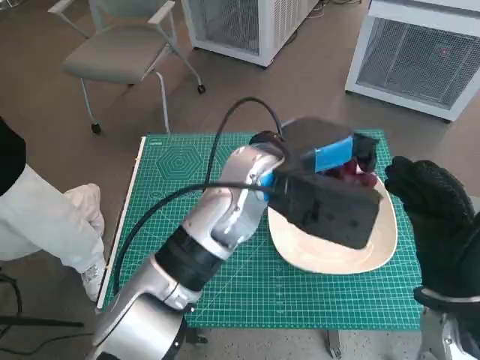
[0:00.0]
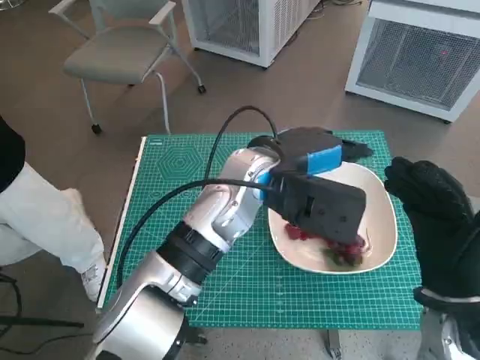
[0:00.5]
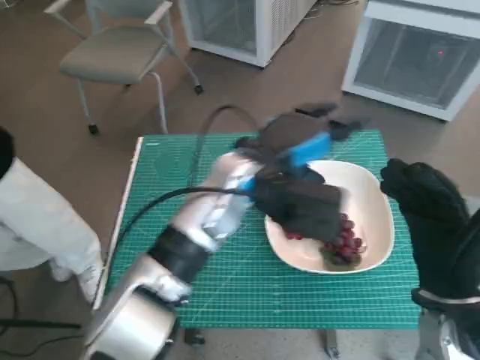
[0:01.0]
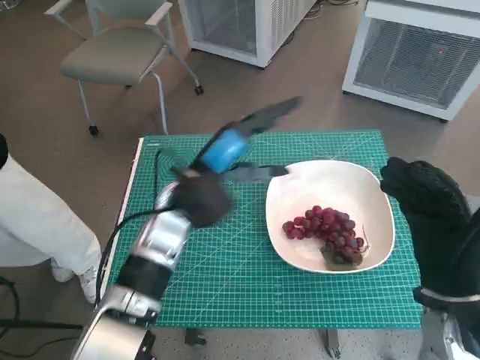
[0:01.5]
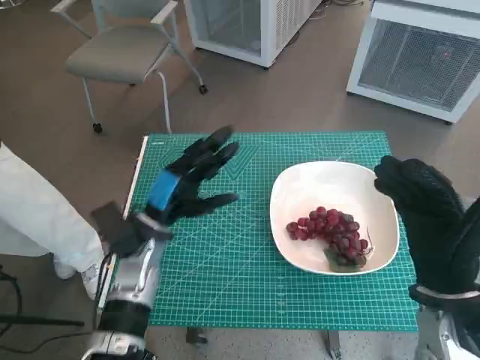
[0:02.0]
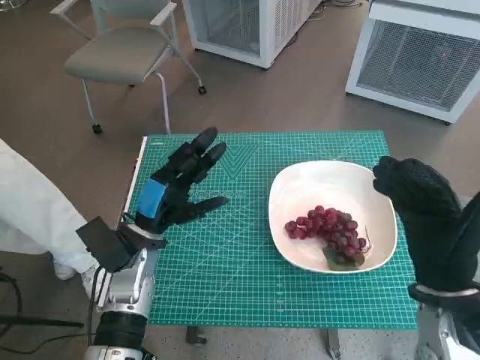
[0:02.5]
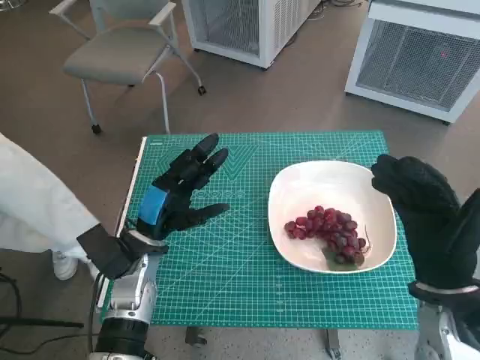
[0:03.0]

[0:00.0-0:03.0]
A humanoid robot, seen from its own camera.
Task of the whole recording: Pick up the grapes and put them on the plate.
0:00.0 to 0:01.5: The left hand is displaced to the left and downward by approximately 10 cm.
0:01.5 to 0:03.0: The left hand goes roughly 10 cm downward and to the left.

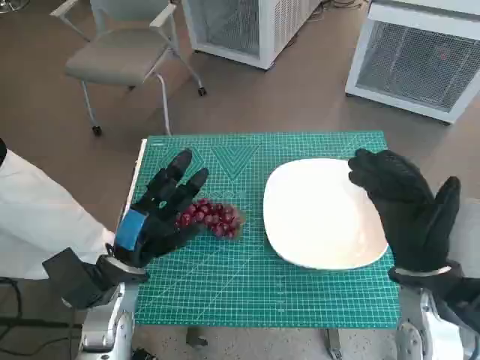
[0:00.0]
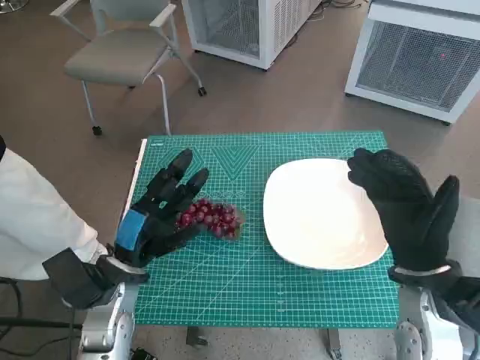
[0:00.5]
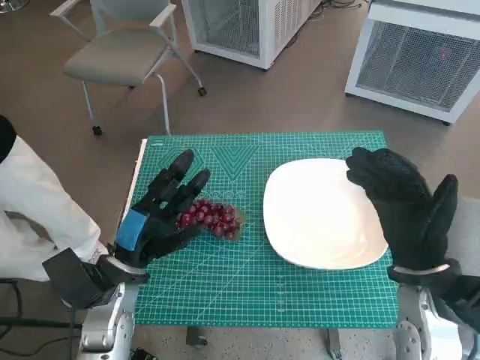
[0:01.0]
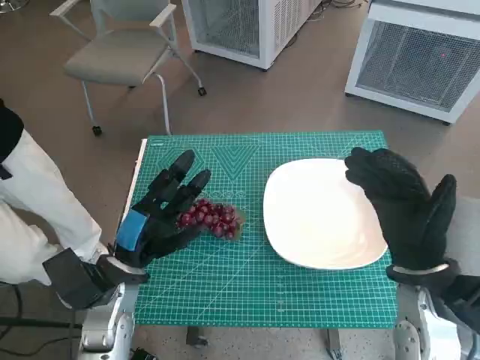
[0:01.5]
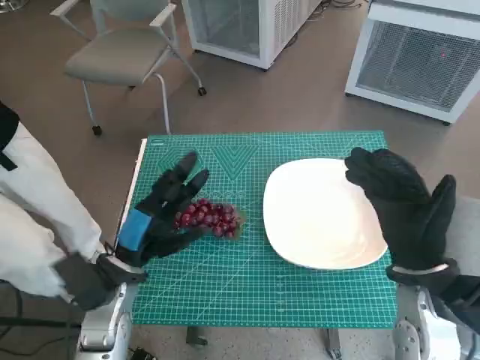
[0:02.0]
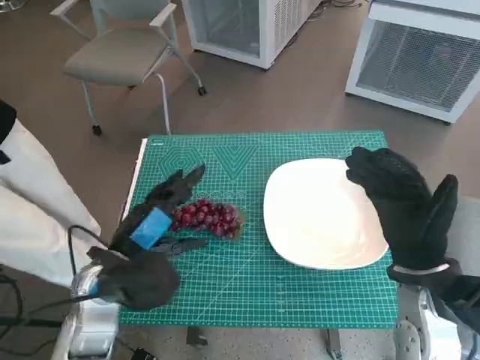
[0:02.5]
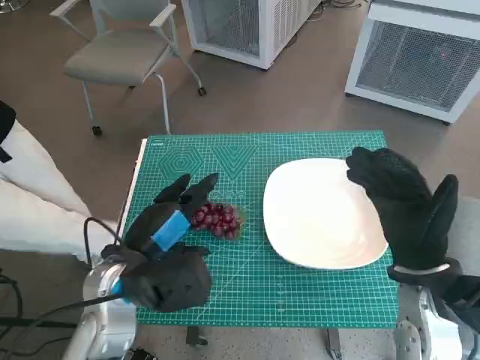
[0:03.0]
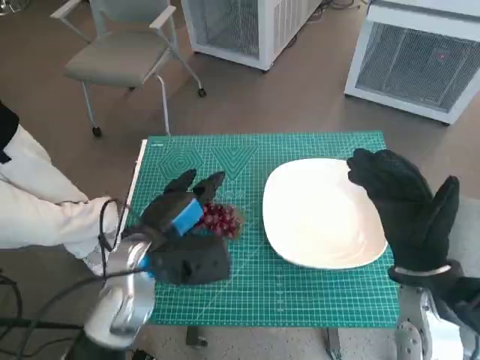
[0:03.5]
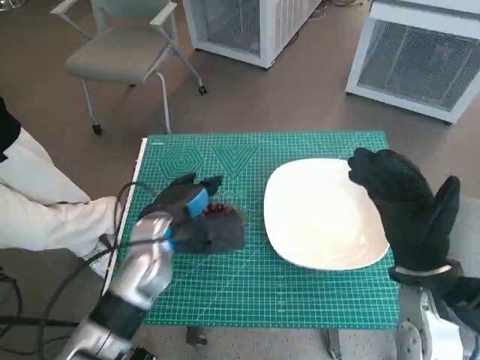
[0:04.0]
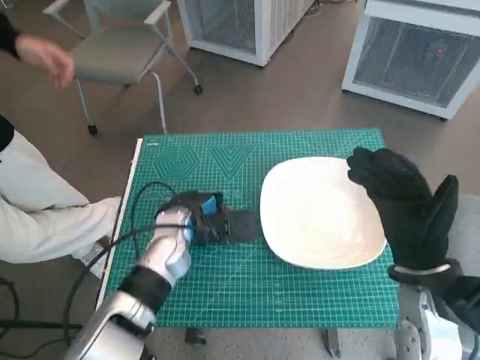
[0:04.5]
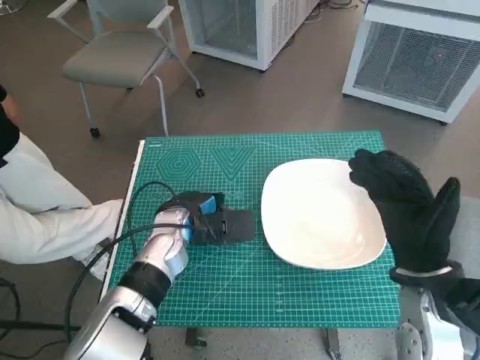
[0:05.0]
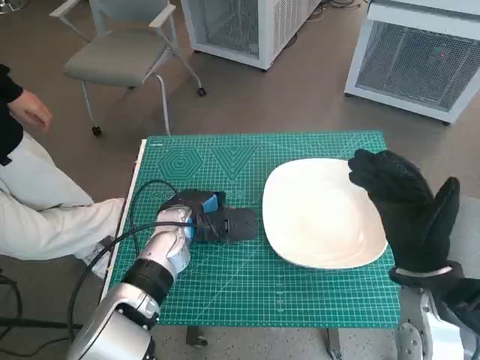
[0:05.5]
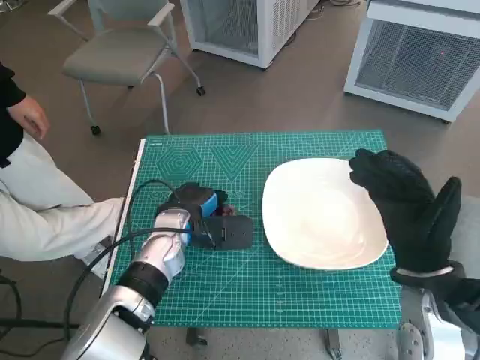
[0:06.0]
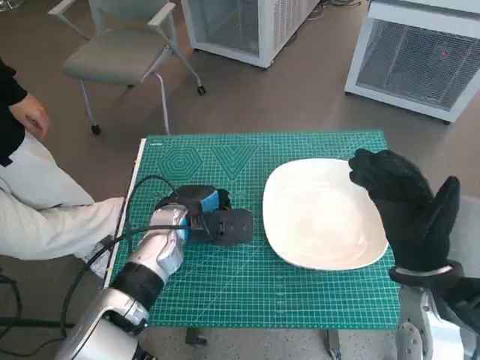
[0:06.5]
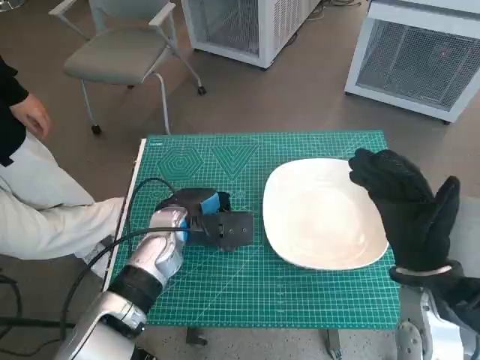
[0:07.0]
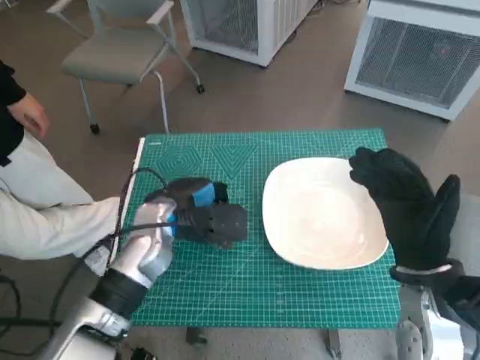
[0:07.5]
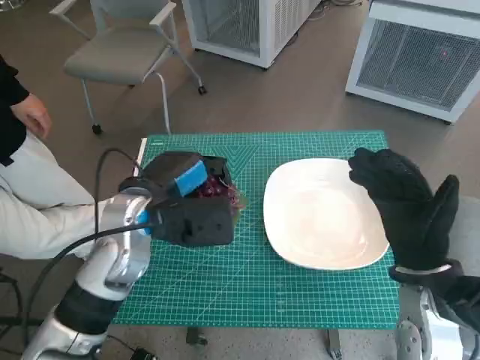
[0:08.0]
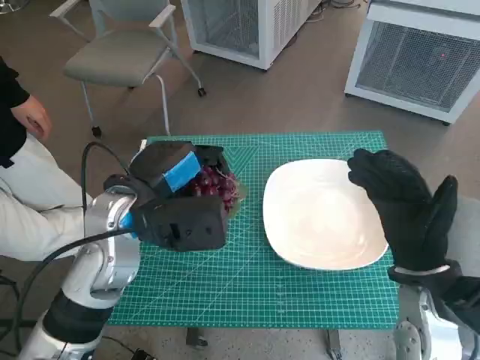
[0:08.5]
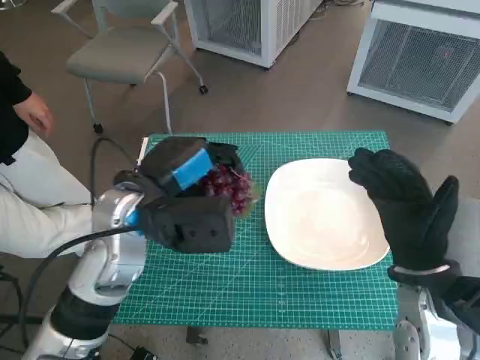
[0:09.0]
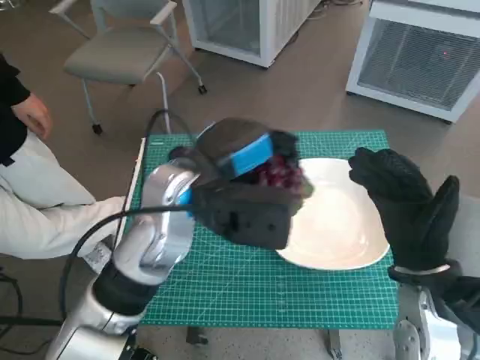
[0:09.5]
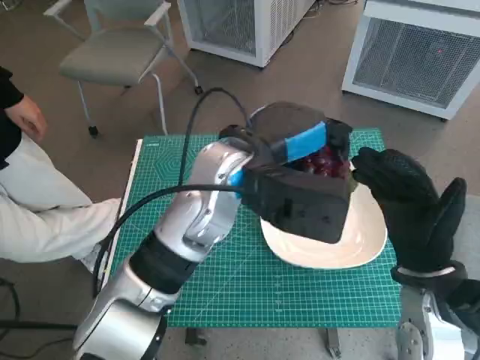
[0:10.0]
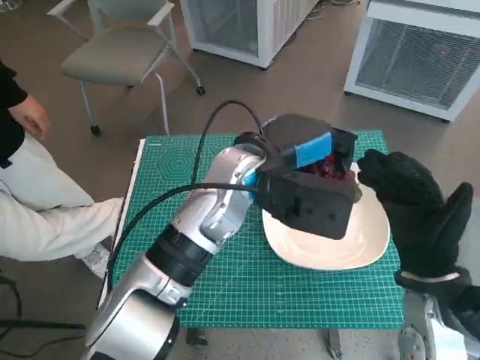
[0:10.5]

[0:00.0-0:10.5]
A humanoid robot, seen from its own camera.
Task of the whole recording: Pick up the grapes and put them on the plate.
Step, 0:00.0 to 0:06.0: Grasp the grapes with left hand.
0:02.0 to 0:04.0: The left hand moves forward and to the right, some 10 cm.
0:04.0 to 0:06.5: The hands move only a little.
0:06.5 to 0:08.5: The left hand travels upward and backward by some 15 cm.
0:08.5 to 0:10.5: The left hand shifts some 15 cm to the right.

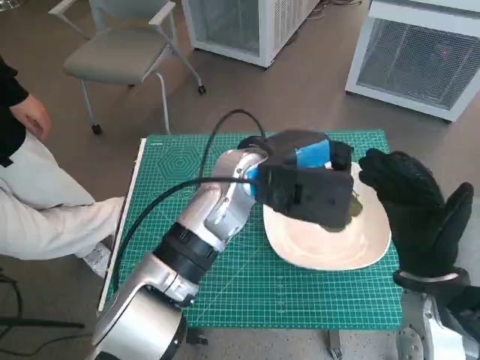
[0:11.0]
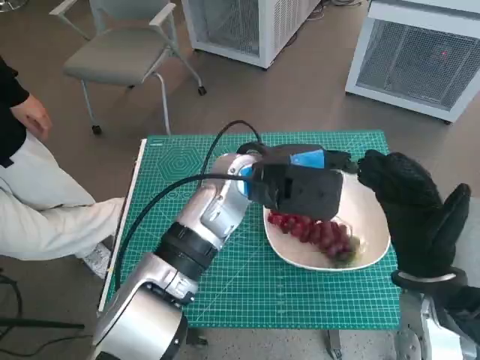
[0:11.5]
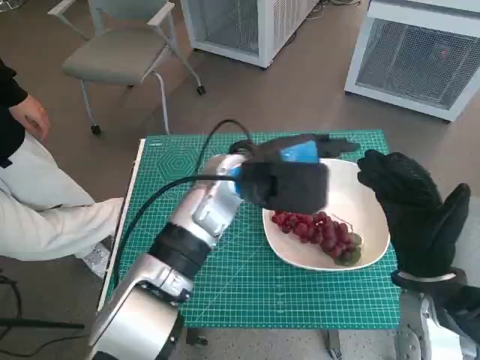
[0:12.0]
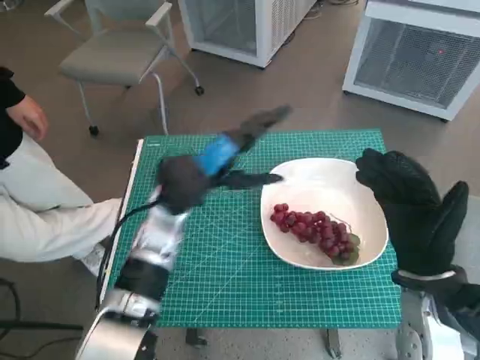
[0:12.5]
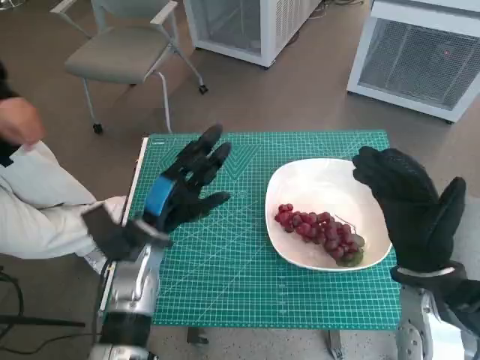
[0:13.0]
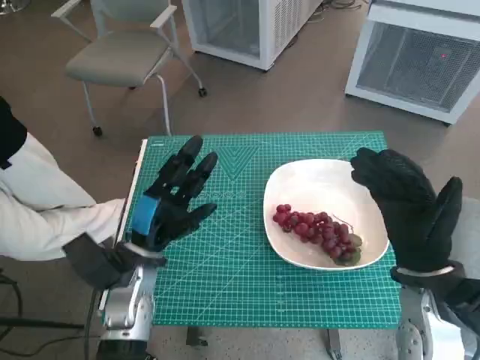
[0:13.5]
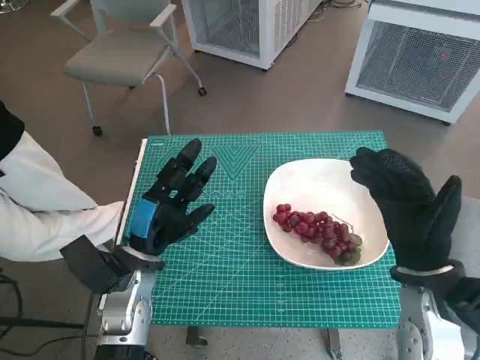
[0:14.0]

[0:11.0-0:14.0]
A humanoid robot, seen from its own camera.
Task of the whole recording: Pick up the grapes and put them on the plate.
0:11.0 to 0:12.5: The left hand is displaced to the left and downward by about 10 cm.
0:12.5 to 0:14.0: The left hand is displaced backward, downward and to the left by some 15 cm.

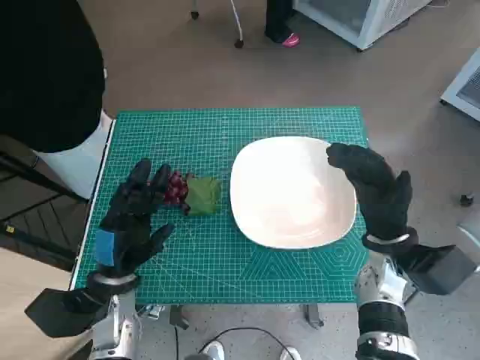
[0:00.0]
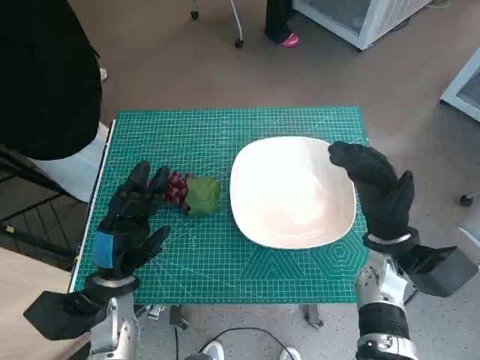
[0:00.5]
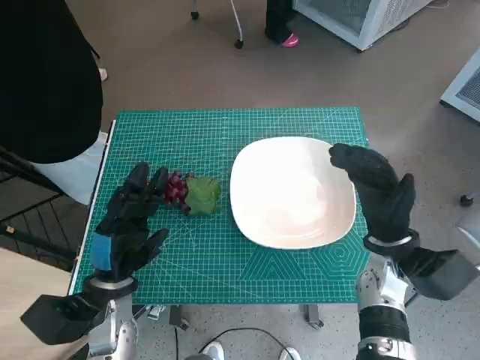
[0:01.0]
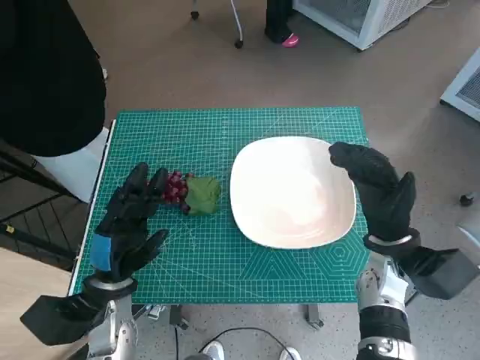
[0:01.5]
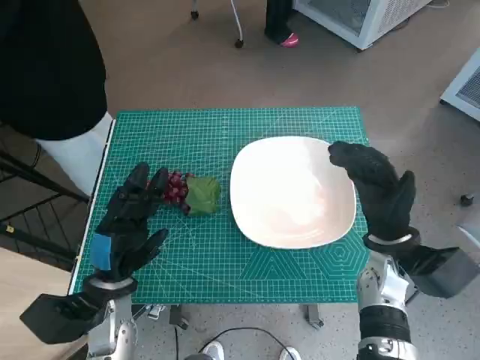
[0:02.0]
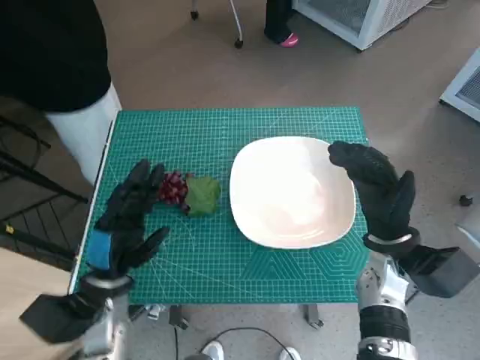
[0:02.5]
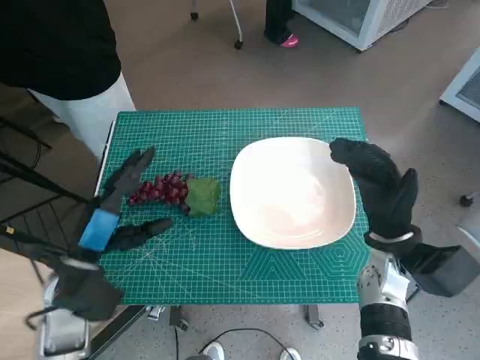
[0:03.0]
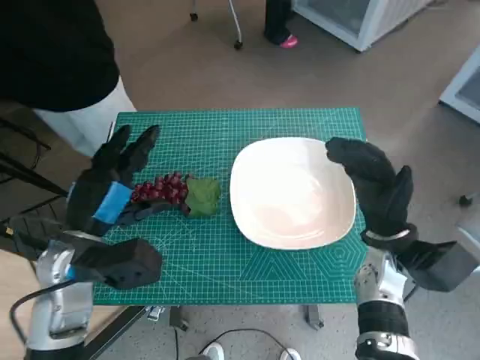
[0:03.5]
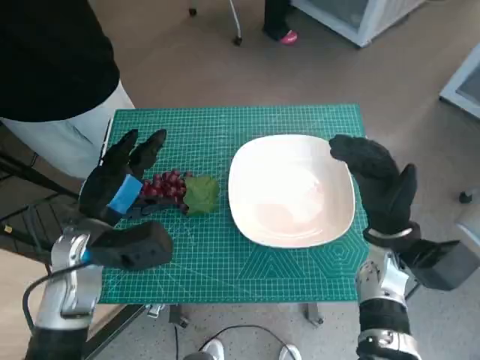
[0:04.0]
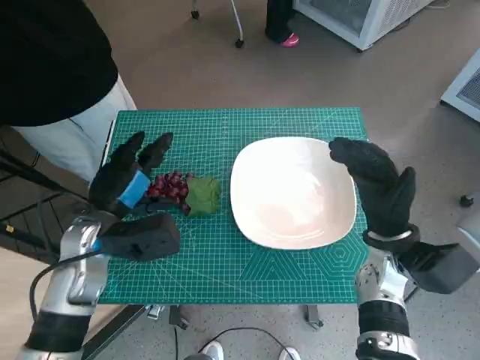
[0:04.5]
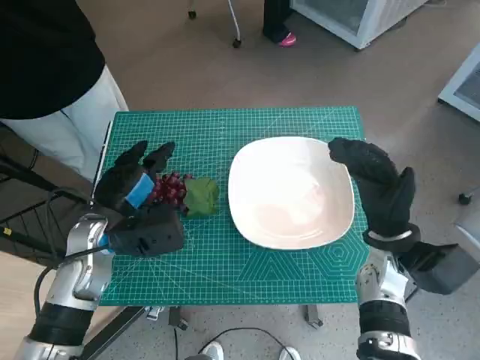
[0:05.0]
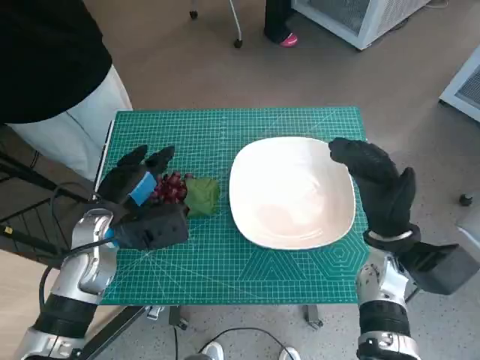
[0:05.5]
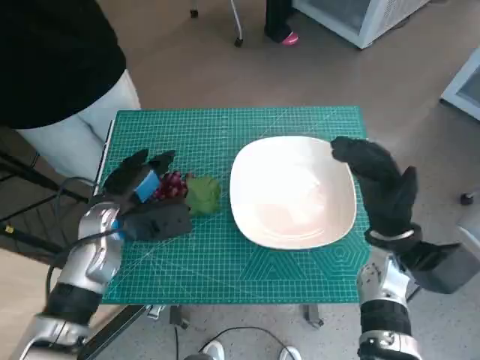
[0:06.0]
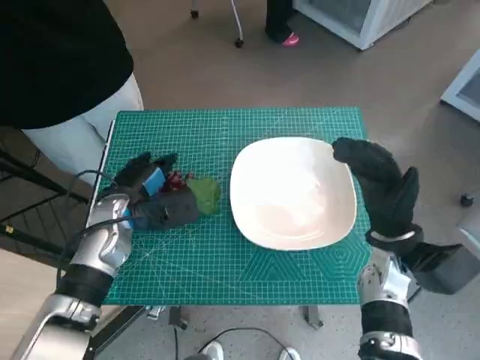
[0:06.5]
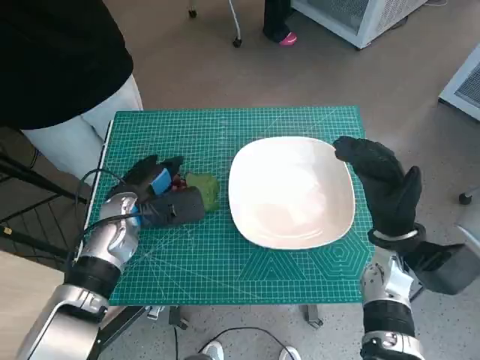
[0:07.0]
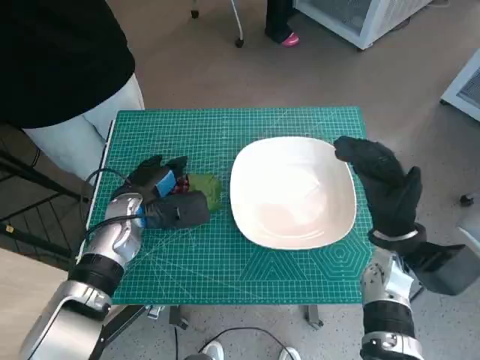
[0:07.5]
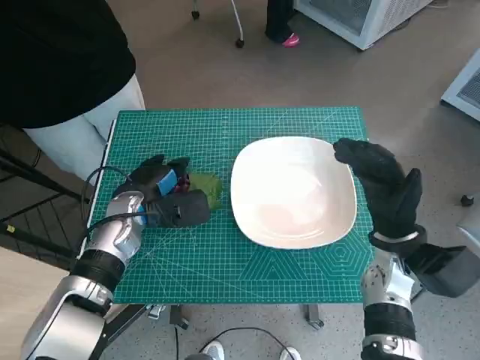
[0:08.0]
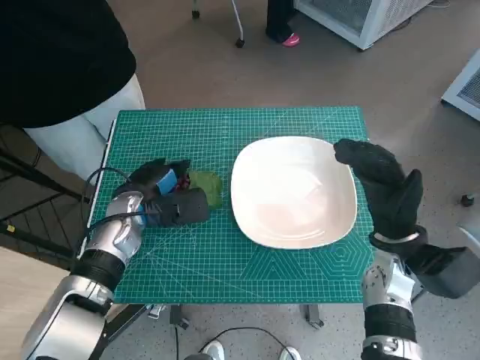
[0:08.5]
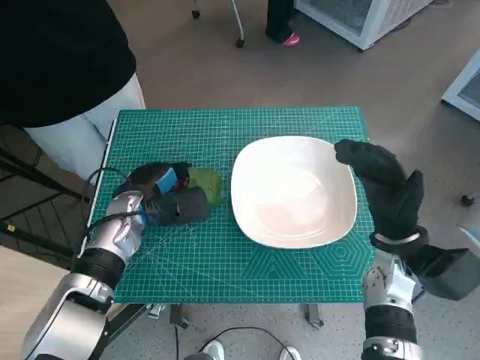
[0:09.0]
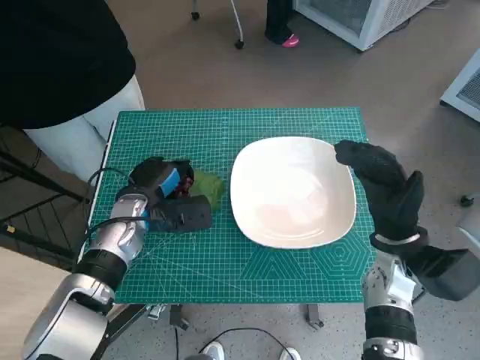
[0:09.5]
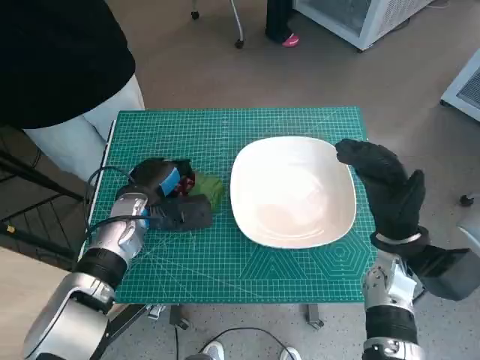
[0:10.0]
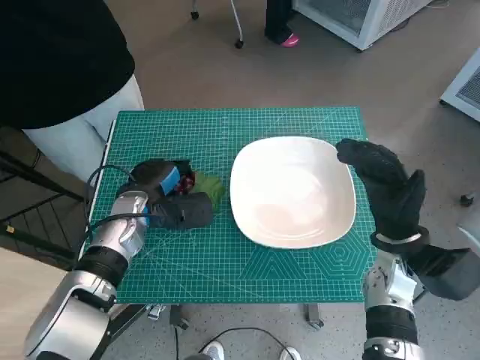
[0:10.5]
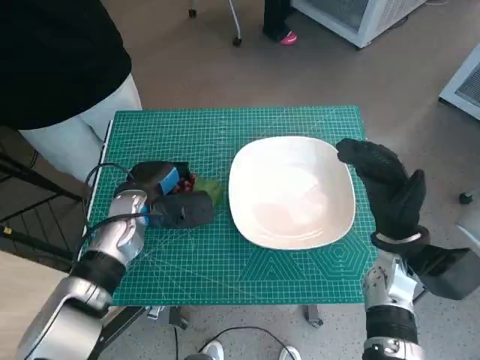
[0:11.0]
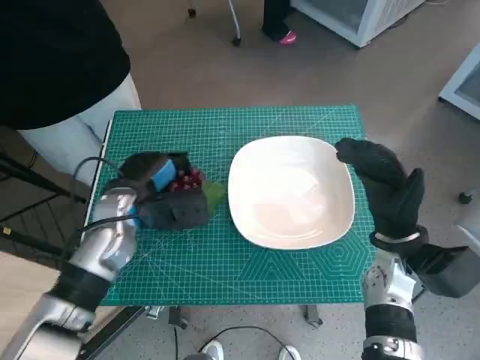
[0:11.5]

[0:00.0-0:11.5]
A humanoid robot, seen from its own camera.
Task of the whole recording: Pick up the grapes and put them on the plate.
Step, 0:00.0 to 0:10.5: Grasp the grapes with left hand.
0:02.0 to 0:04.0: The left hand travels upward by about 10 cm.
0:04.0 to 0:06.0: The left hand changes place by approximately 5 cm.
0:06.0 to 0:11.5: There are only small adjustments of the hands.